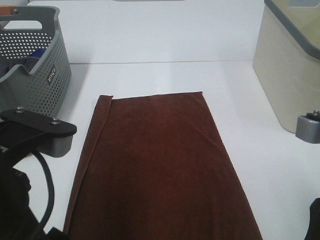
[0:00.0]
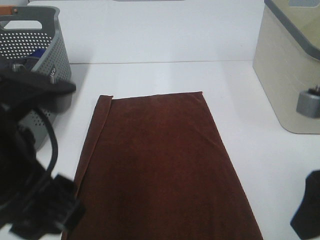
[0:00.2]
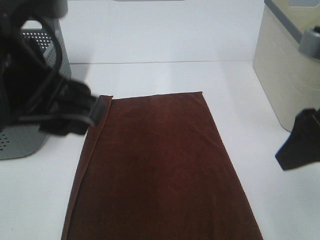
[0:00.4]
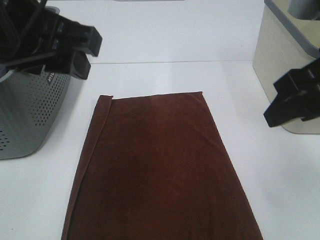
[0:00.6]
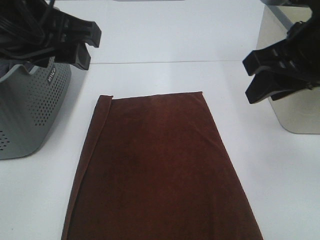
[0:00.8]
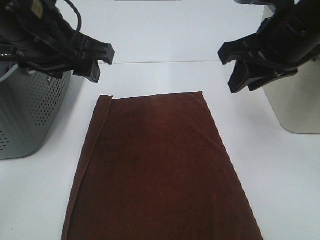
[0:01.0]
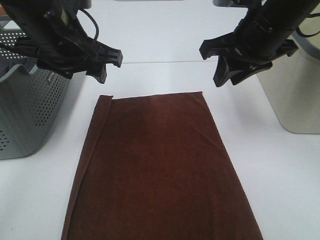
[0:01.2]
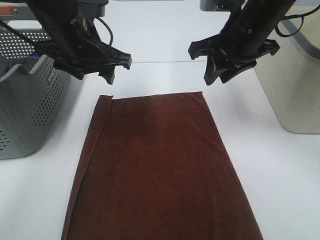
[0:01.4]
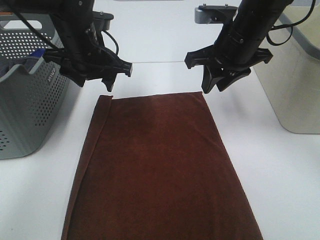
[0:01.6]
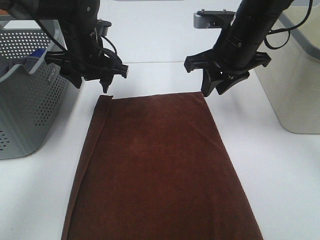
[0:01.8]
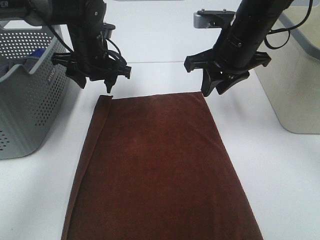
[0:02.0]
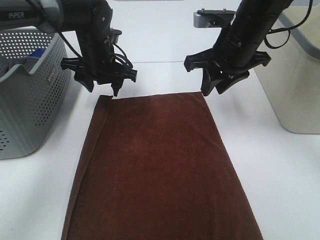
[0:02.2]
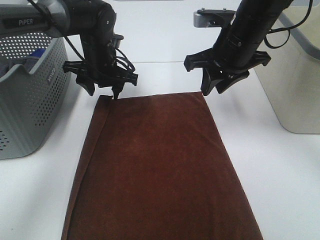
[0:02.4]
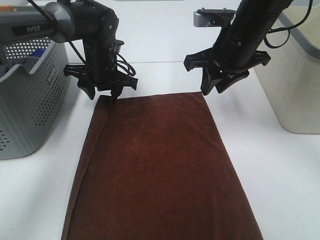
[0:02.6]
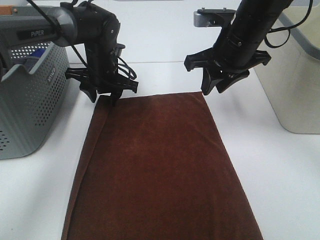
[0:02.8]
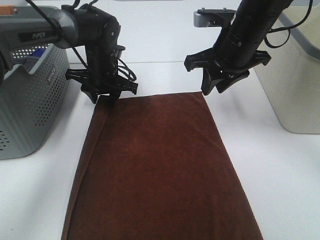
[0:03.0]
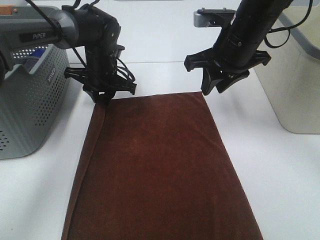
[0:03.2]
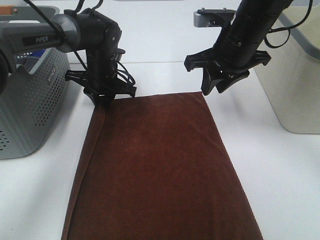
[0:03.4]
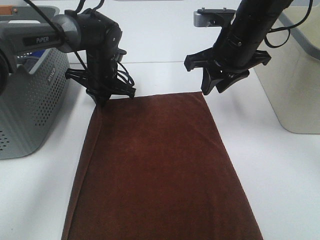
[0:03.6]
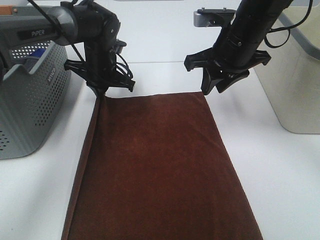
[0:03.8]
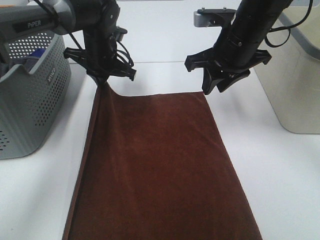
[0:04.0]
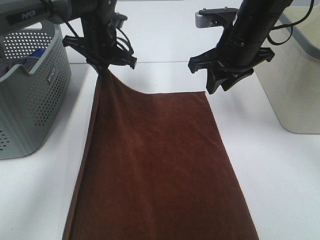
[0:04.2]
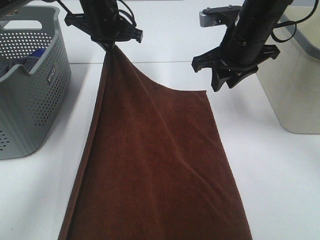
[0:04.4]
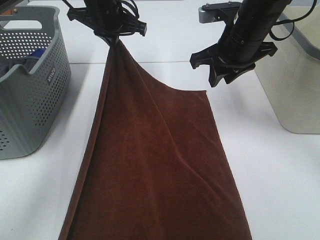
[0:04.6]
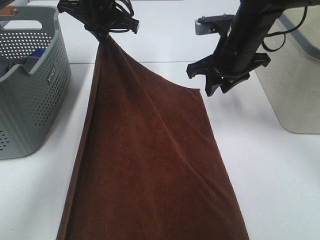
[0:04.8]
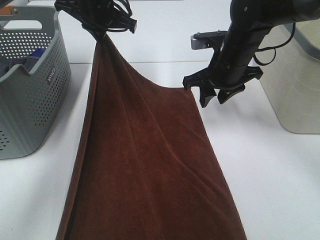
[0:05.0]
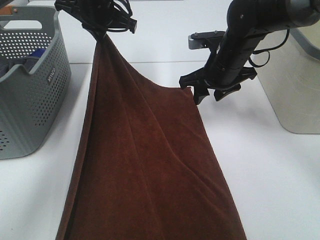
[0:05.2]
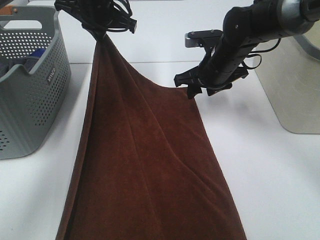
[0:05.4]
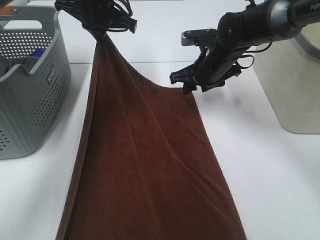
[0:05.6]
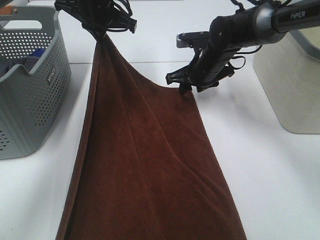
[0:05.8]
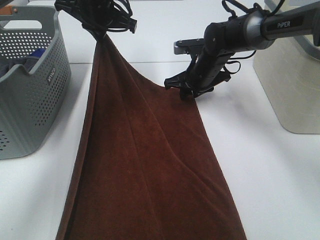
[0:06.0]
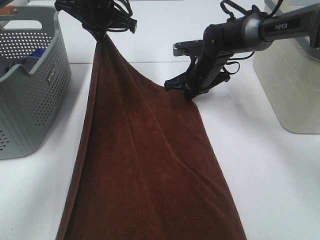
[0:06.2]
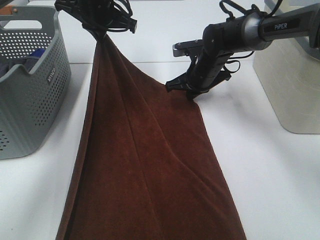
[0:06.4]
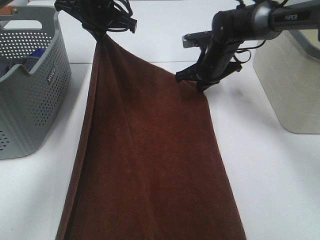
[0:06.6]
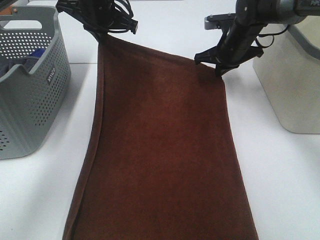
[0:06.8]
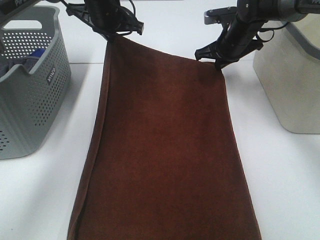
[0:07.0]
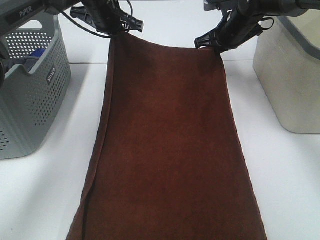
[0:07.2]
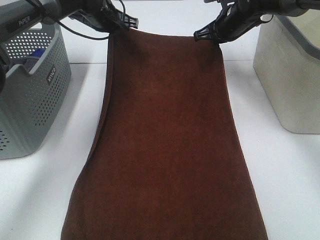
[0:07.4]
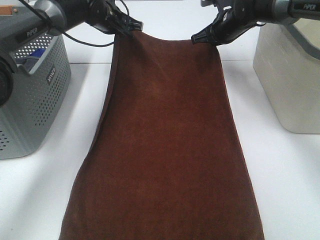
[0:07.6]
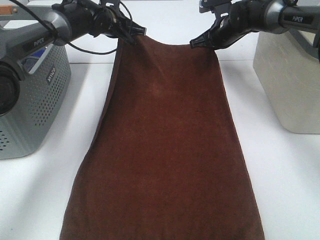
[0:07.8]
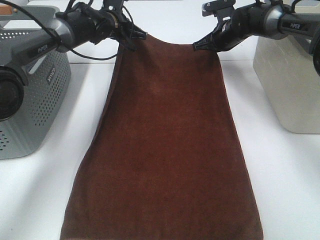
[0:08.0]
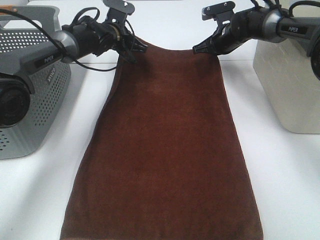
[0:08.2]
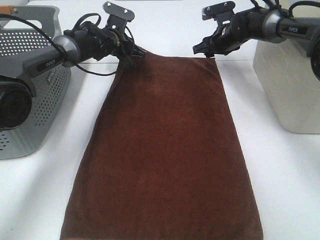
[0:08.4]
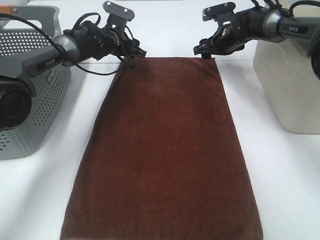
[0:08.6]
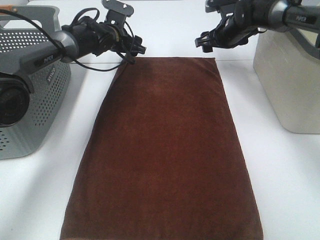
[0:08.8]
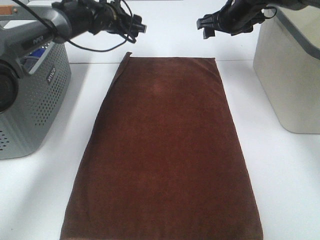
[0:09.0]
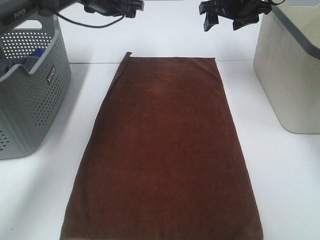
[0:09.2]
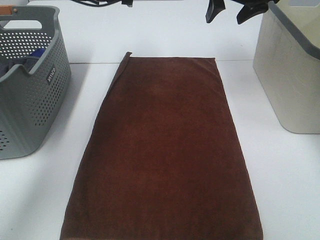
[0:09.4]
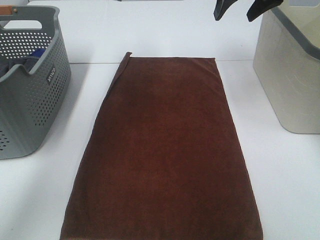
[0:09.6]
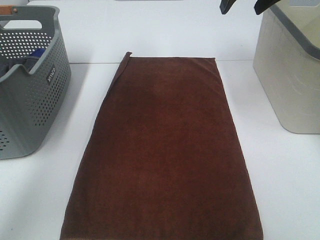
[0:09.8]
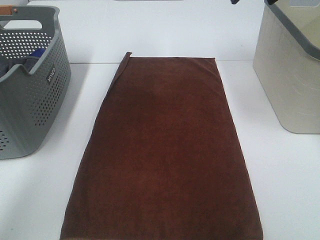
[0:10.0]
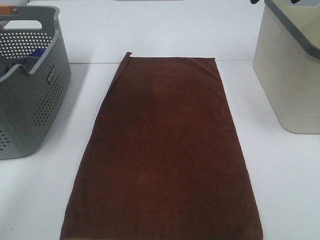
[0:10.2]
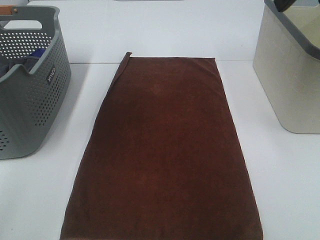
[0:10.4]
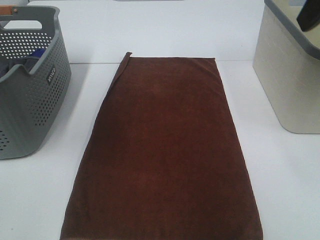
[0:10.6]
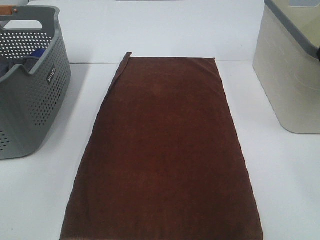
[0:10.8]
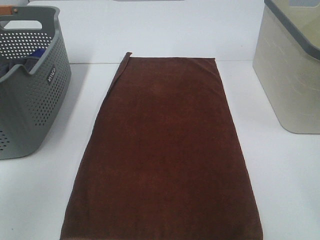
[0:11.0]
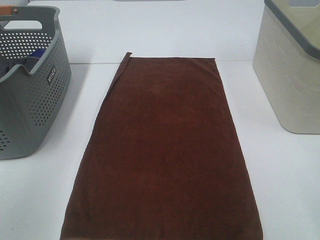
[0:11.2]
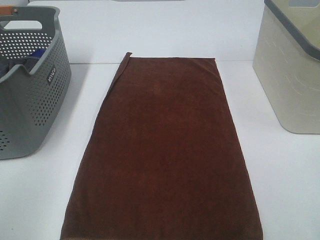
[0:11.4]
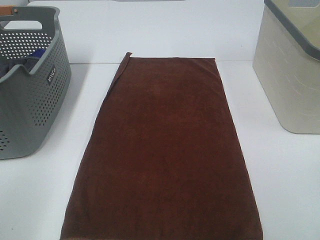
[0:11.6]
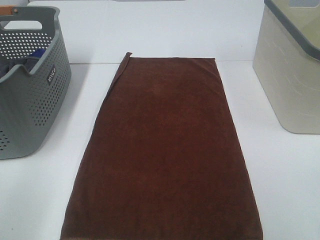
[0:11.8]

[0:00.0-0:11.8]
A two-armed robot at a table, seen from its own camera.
Task of the whole recording: Remove the towel and place it.
Step, 0:00.0 to 0:02.2: Left hand:adjust the brown towel.
Step, 0:00.0 to 0:02.2: Right hand:adjust the brown towel.
0:00.0 to 0:01.4: Both grippers travel together forward, roughly 25 cm. The right gripper closes up.
0:01.4 to 0:03.0: The left gripper heads downward and forward, covering approximately 15 cm.
0:03.0 to 0:04.4: The left gripper travels upward by some 10 cm, and closes its fingers.
0:04.4 to 0:06.0: The right gripper shifts some 15 cm downward and forward.
0:06.0 to 0:07.4: The left gripper heads forward and downward, covering some 10 cm. The right gripper is displaced upward, forward and to the right by roughly 10 cm, and closes.
0:07.4 to 0:08.8: The right gripper opens up. Meanwhile the left gripper goes roughly 5 cm downward, and opens up.
0:08.8 to 0:10.4: The right gripper is displaced backward and upward by approximately 35 cm. Meanwhile the left gripper shifts some 40 cm upward and backward.
0:10.4 to 0:11.8: Both grippers travel together backward and downward, some 30 cm.

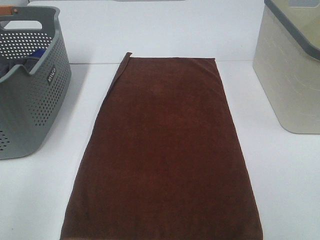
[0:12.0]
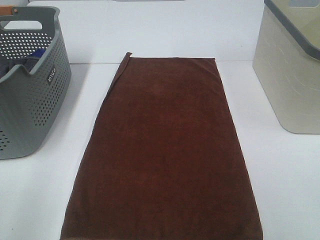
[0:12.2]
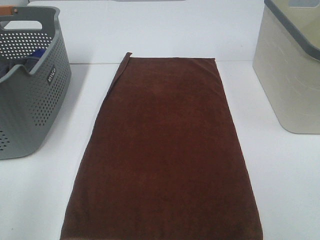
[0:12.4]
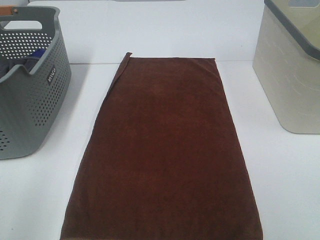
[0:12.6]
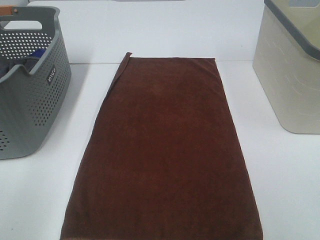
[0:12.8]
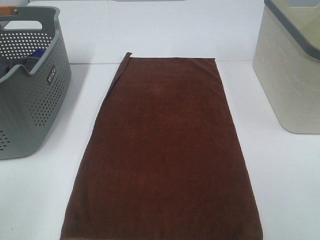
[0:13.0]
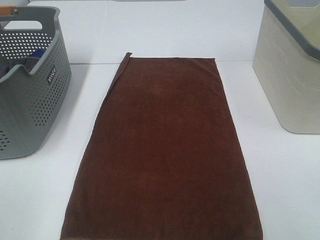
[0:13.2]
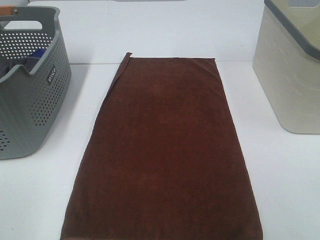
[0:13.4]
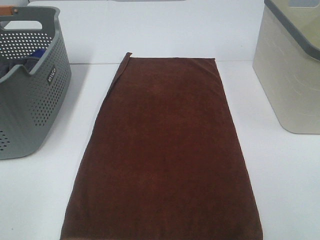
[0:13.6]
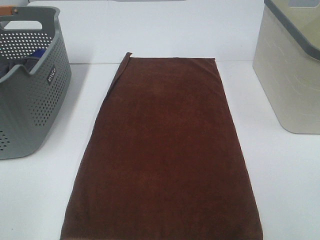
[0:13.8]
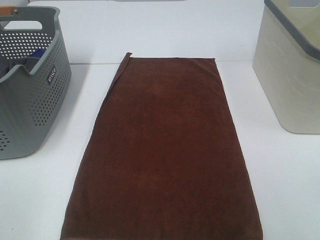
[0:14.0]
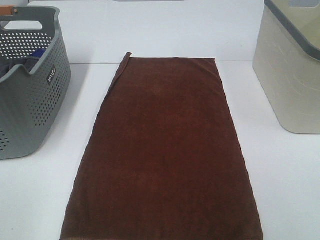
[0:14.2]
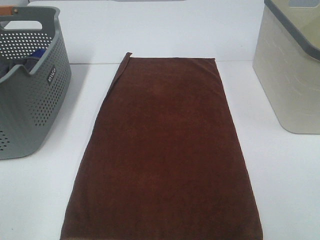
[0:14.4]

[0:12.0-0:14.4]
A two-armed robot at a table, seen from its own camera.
Task of the whole recording: Remove the towel and place it.
0:13.2 to 0:14.4: Both grippers stay about where they are.

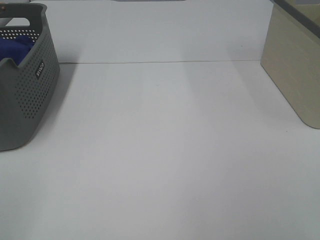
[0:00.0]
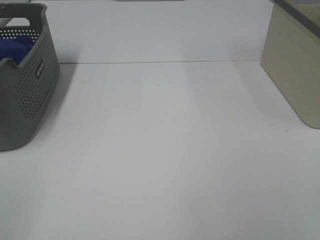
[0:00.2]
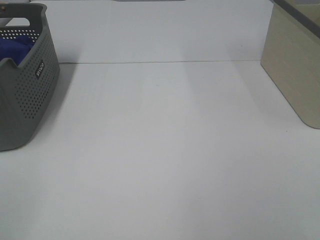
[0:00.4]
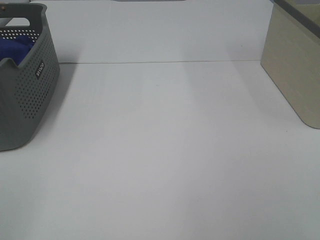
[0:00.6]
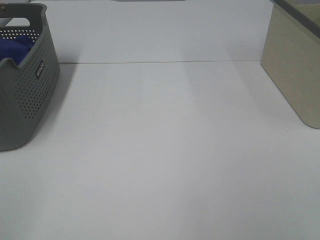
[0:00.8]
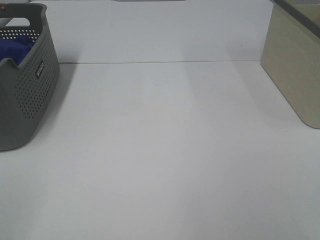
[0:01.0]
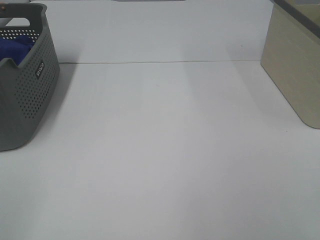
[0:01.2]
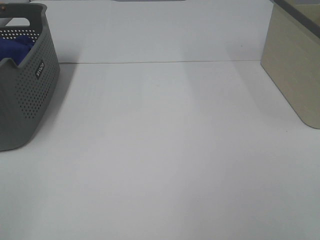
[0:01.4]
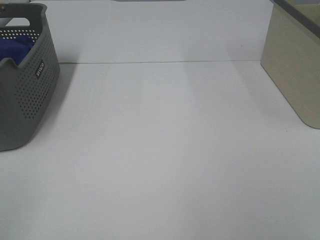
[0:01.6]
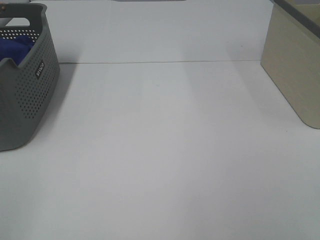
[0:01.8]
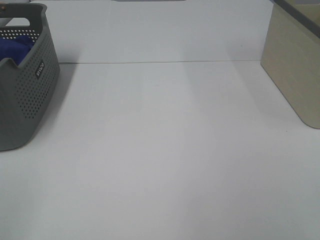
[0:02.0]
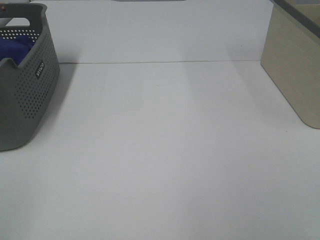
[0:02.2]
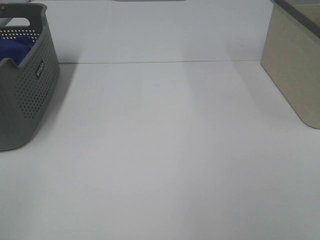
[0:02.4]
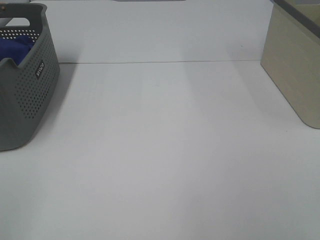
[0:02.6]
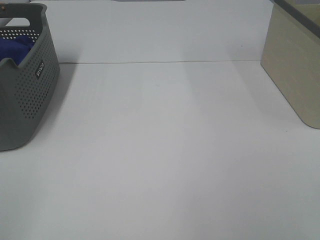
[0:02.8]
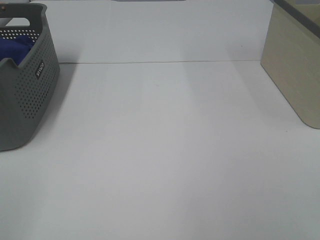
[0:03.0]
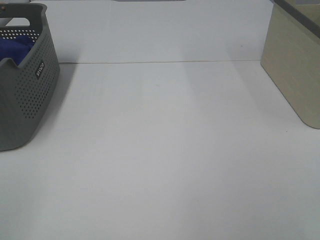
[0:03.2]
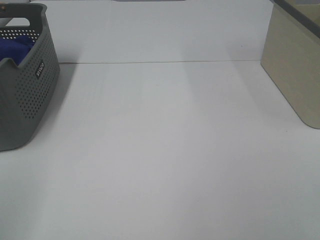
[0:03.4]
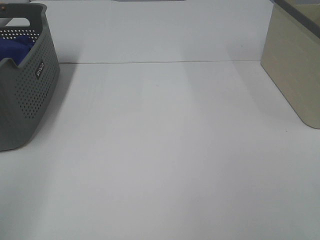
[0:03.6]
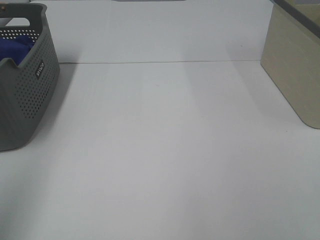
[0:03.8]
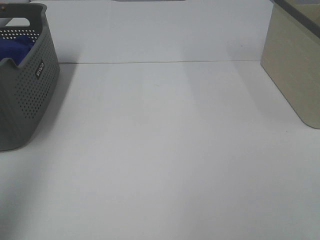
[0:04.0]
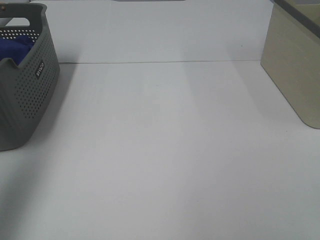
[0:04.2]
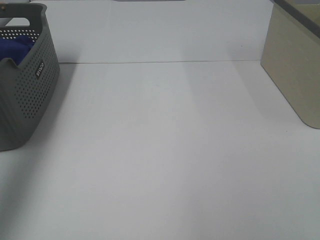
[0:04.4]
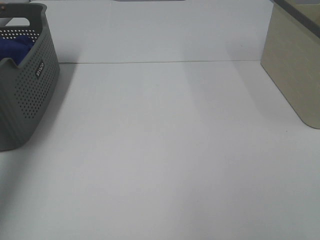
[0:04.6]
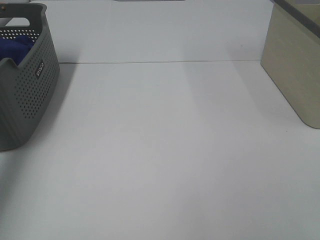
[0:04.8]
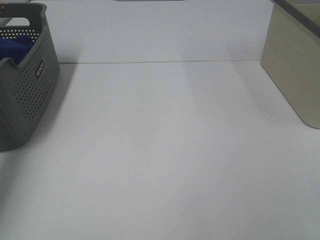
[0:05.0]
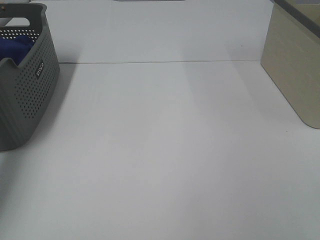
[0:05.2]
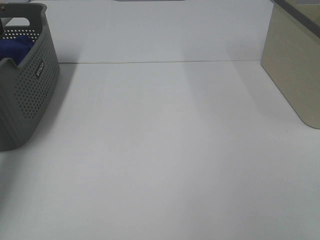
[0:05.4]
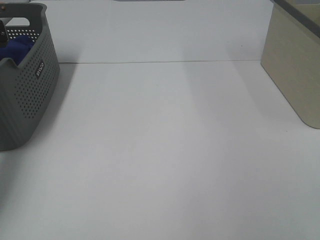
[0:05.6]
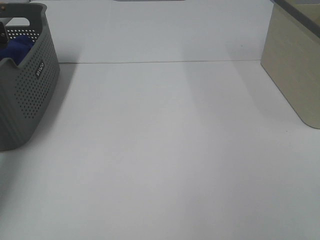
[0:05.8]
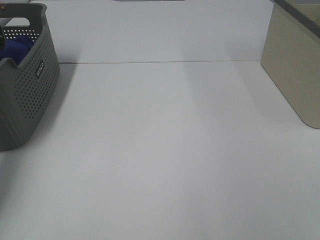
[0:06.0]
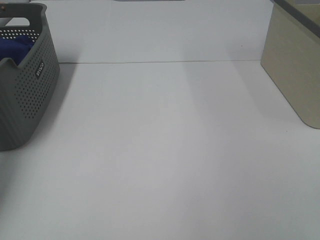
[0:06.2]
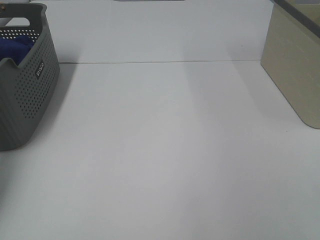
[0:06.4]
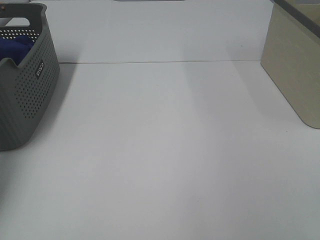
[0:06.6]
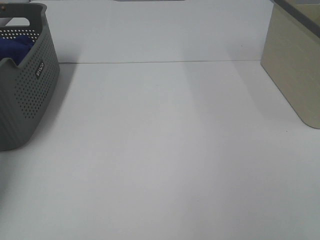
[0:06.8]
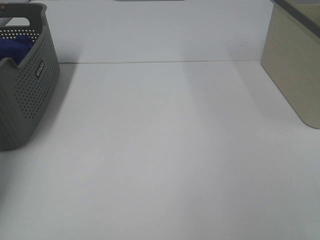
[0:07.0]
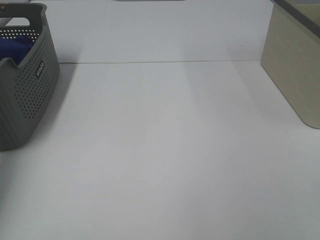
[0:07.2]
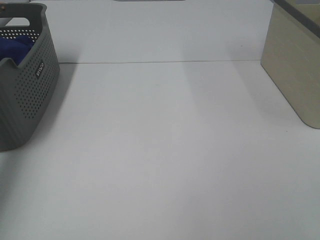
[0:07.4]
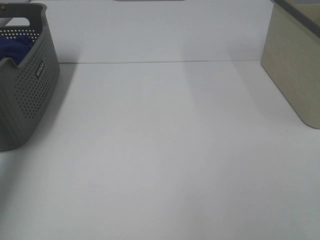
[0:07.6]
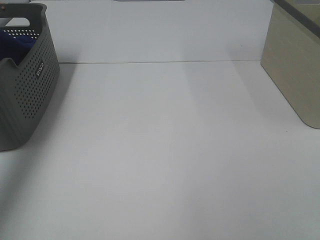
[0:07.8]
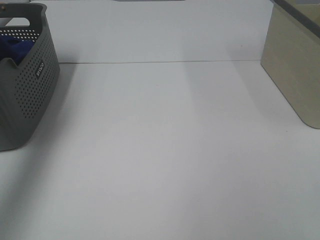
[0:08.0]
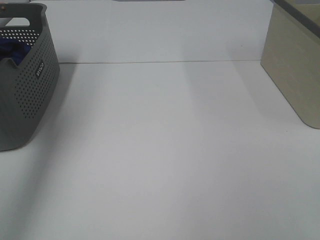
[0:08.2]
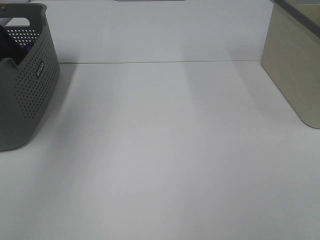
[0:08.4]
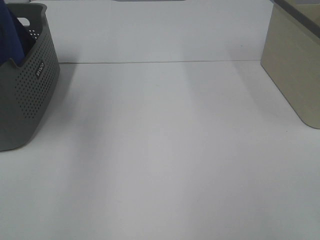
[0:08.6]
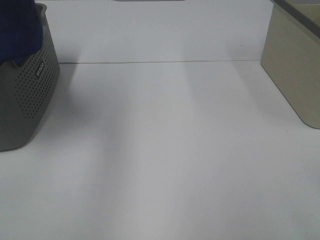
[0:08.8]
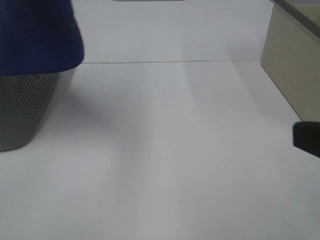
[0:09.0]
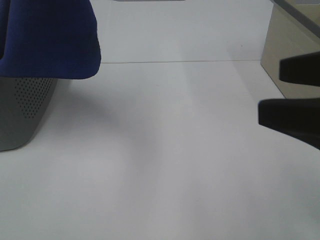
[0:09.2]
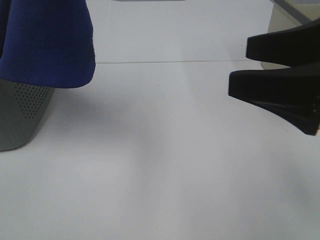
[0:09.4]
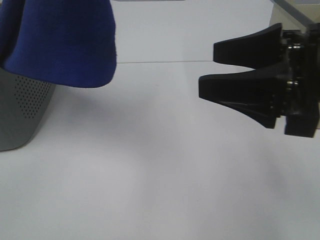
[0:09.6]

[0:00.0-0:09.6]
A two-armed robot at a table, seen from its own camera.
Task of the whole recording: Remove the towel and place it.
0:00.0 to 0:03.2: Both grippers stay about where they are.
0:03.2 to 0:04.8: The left gripper heads forward, covering some 40 cm.
0:06.4 to 0:08.0: The left gripper is displaced upward and backward by approximately 30 cm.
0:08.0 to 0:09.6: The right gripper goes about 20 cm forward and to the left. The left gripper is displaced to the right and backward by approximately 25 cm.
